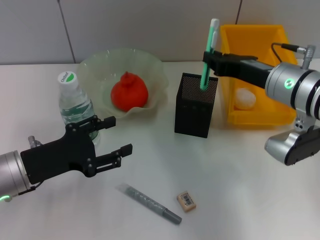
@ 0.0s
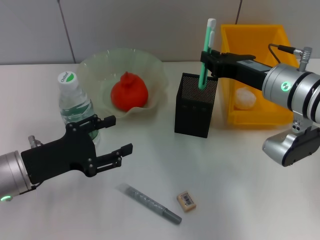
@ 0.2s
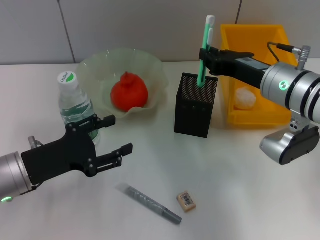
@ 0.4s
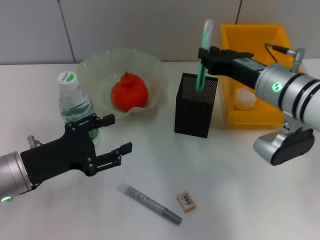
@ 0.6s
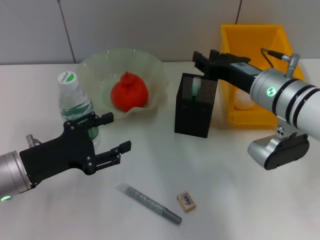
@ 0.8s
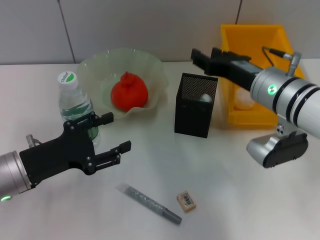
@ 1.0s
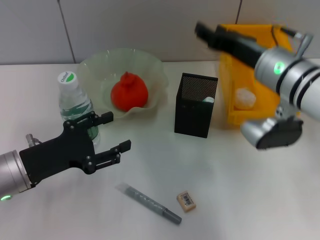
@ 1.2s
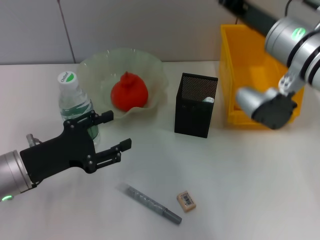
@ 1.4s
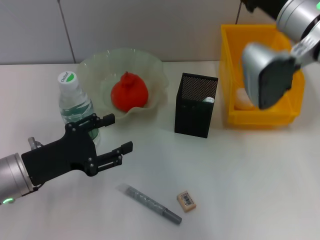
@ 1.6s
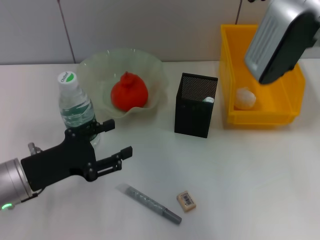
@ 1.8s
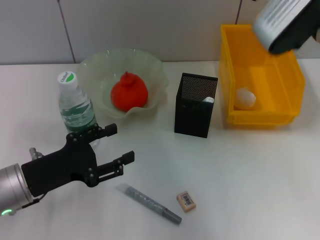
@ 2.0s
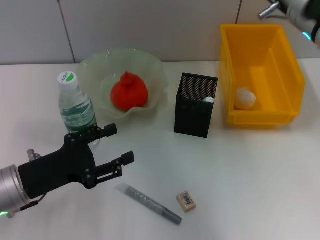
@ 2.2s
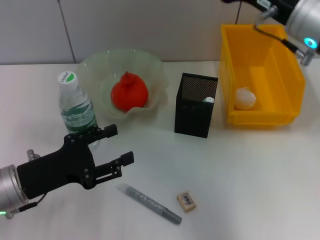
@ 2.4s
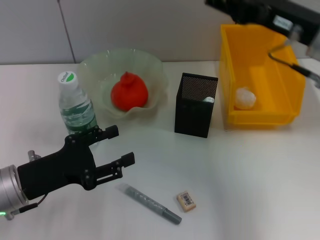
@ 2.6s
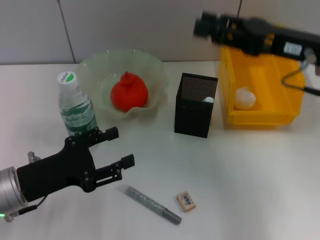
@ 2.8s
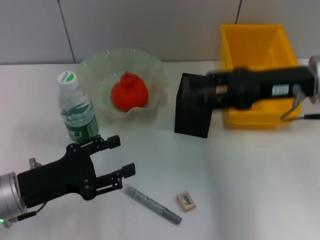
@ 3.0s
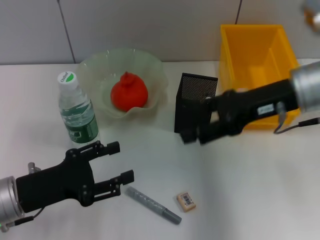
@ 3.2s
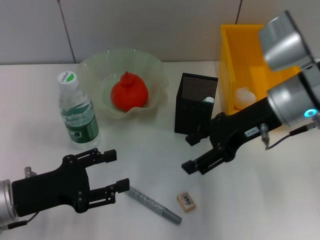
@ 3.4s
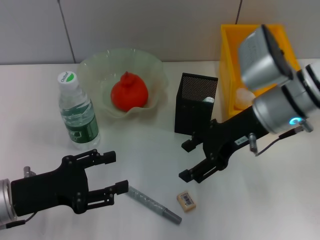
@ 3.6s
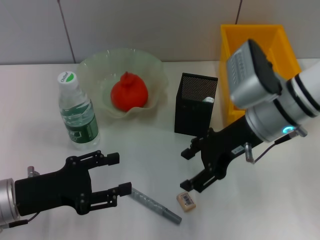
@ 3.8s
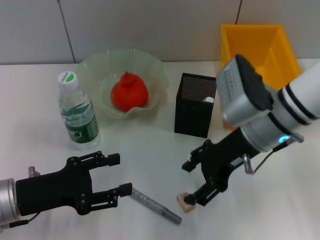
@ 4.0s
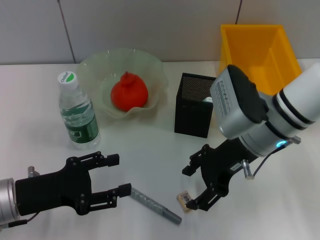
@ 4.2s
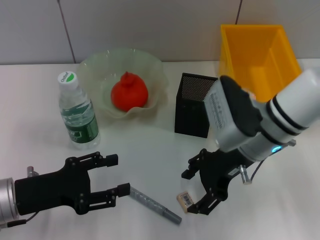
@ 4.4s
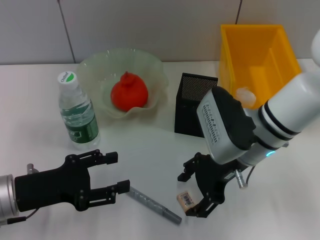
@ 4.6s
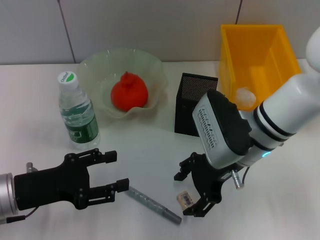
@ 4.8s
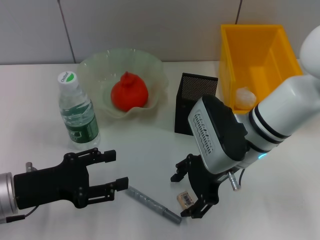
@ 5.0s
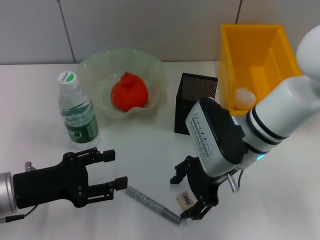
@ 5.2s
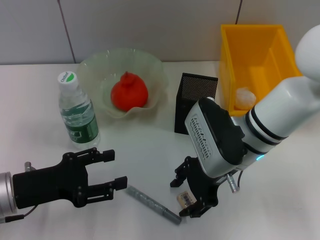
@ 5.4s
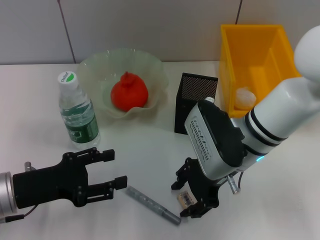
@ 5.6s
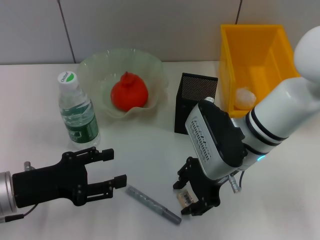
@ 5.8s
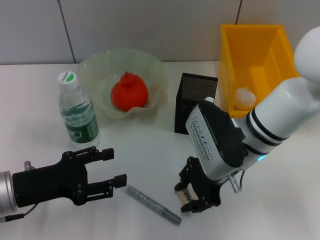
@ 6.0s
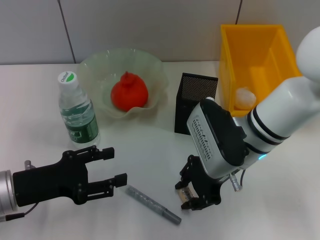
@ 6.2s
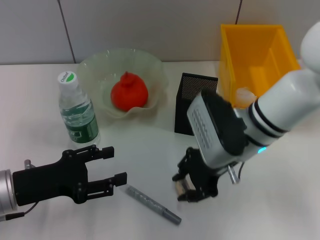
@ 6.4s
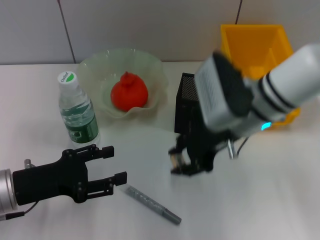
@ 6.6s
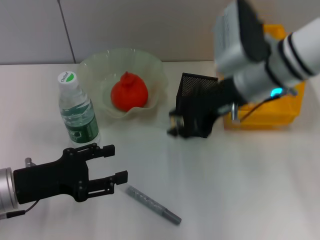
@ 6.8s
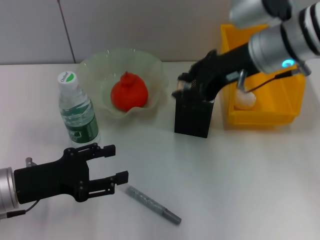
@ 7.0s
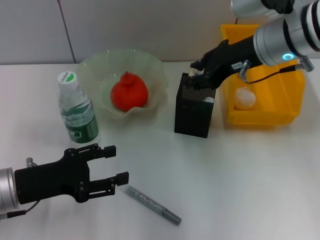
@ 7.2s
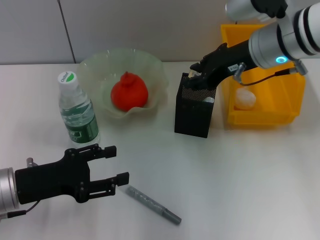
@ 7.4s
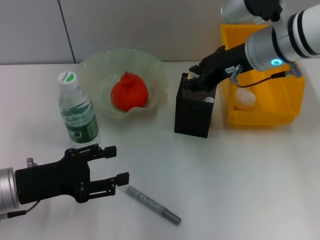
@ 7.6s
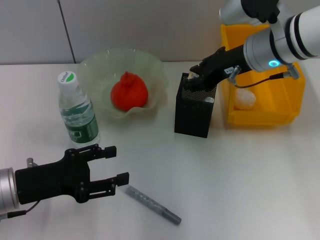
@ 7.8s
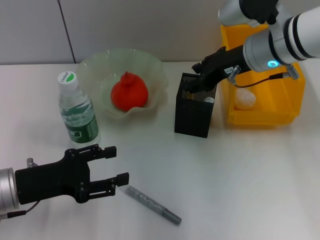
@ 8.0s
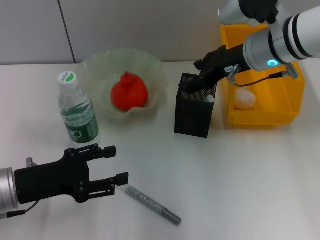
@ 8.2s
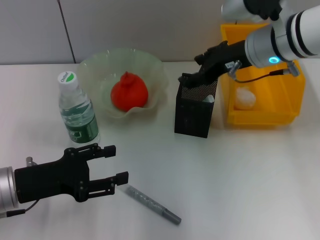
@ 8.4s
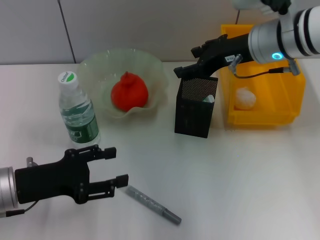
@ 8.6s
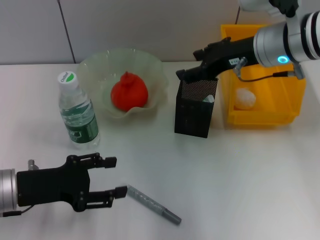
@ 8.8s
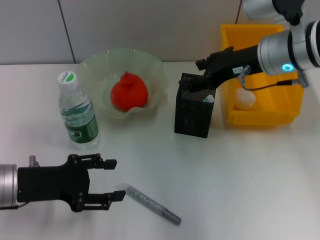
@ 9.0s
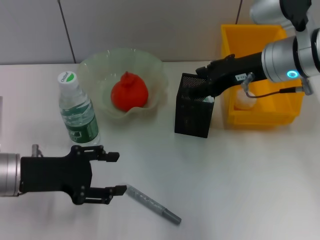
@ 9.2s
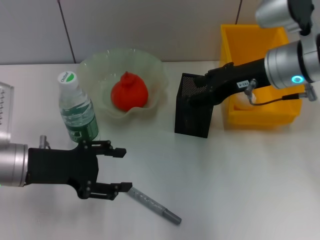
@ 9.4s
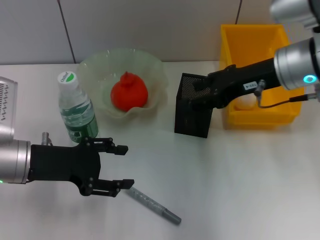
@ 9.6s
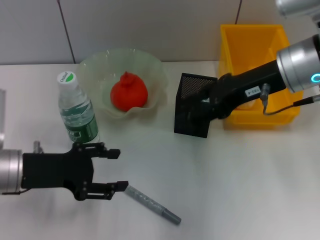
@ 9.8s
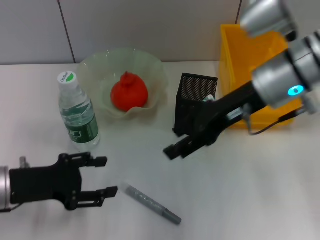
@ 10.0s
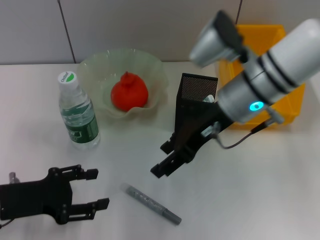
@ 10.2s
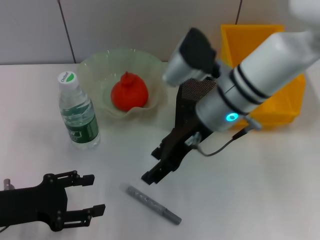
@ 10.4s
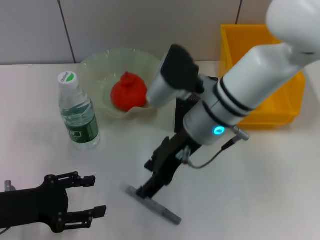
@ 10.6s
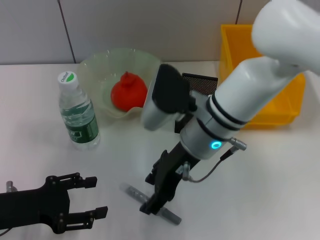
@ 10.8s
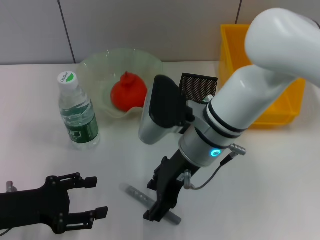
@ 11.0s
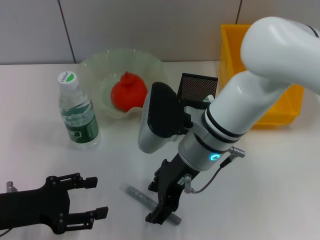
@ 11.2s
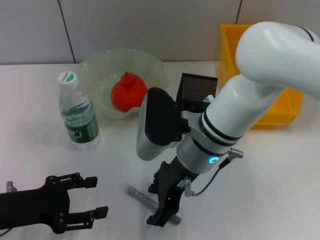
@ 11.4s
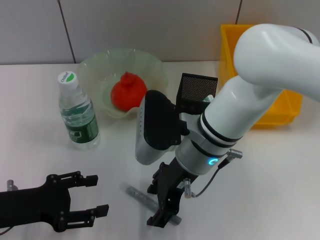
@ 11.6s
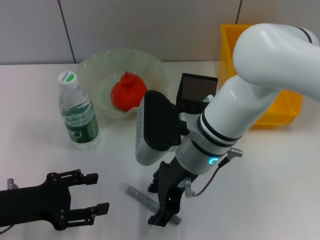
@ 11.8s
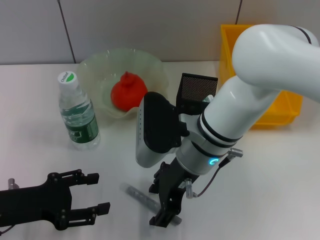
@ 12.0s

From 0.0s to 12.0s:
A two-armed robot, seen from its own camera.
Step, from 1.4s to 6.0s: Grab the eraser with the right hand.
Step, from 6.2s to 8.0s: Put the eraser into the pen holder with the right hand.
From 0.0s to 1.6s: The right gripper moves upward, about 10 cm, and opens its fingers.
From 1.6s to 3.0s: The right gripper ends up about 5 cm from where it was.
From 3.0s to 4.4s: The right gripper shifts approximately 10 cm to the left and downward.
From 4.4s to 6.0s: The right gripper closes up.
From 6.0s to 7.6s: The right gripper goes approximately 10 cm upward and forward.
From 7.6s to 9.0s: The right gripper opens up.
From 9.0s to 10.4s: The right gripper goes some 10 cm to the left.
From 10.4s to 12.0s: The right gripper ends up roughly 5 cm from where it was.

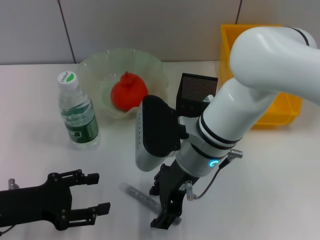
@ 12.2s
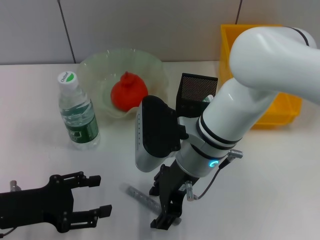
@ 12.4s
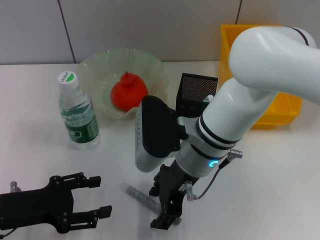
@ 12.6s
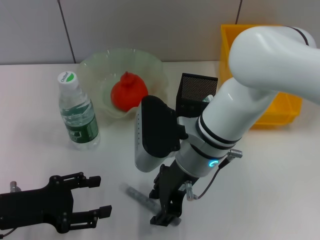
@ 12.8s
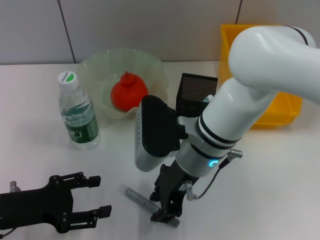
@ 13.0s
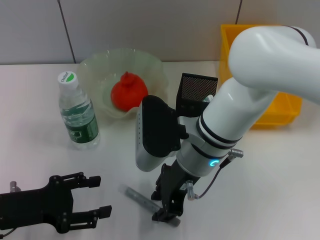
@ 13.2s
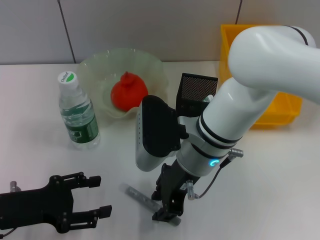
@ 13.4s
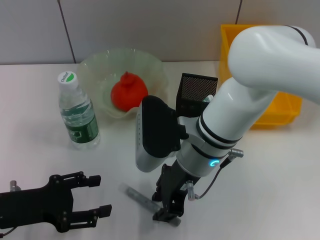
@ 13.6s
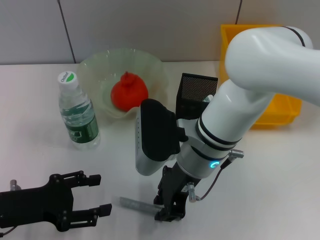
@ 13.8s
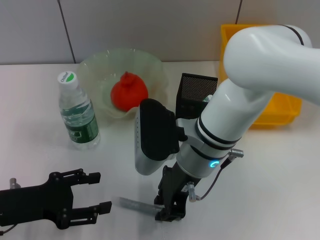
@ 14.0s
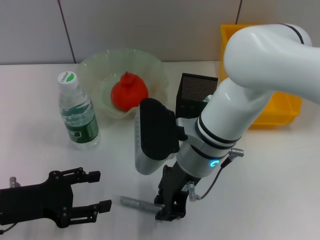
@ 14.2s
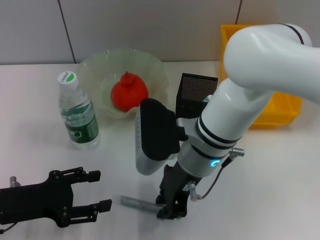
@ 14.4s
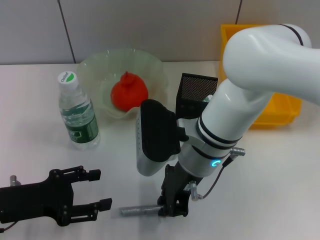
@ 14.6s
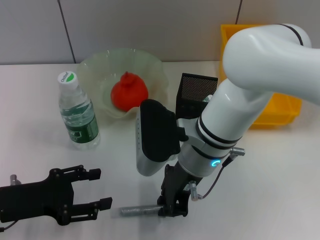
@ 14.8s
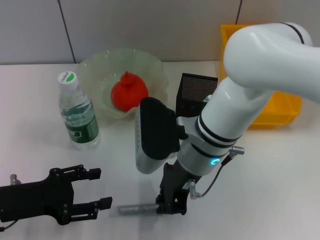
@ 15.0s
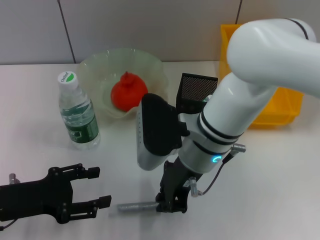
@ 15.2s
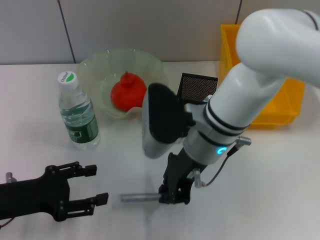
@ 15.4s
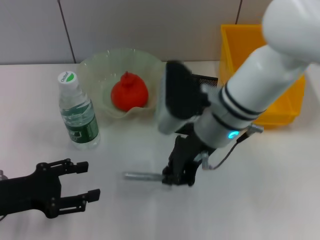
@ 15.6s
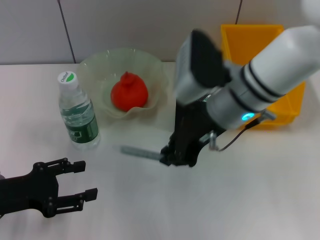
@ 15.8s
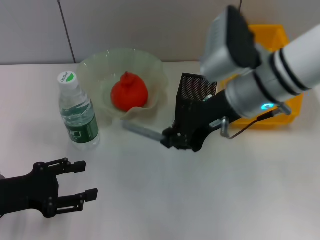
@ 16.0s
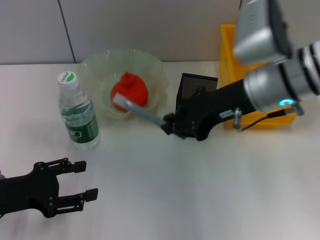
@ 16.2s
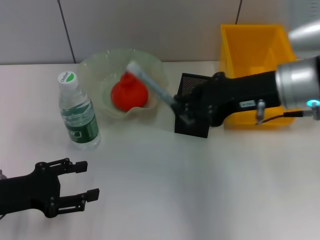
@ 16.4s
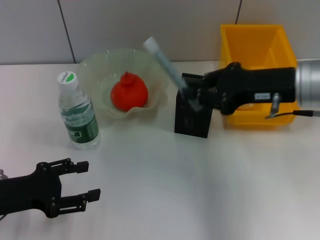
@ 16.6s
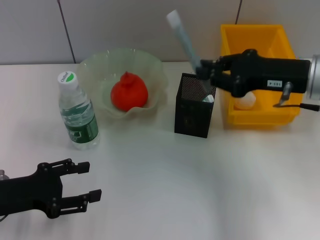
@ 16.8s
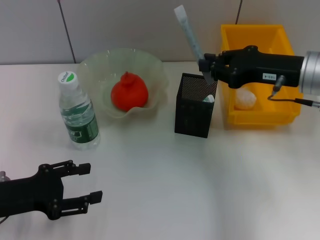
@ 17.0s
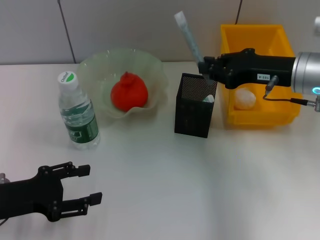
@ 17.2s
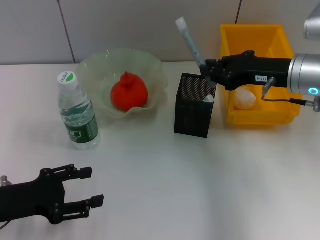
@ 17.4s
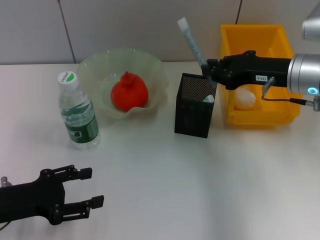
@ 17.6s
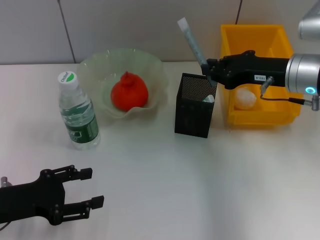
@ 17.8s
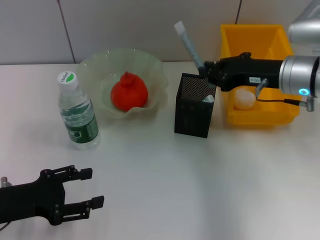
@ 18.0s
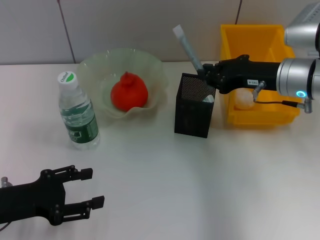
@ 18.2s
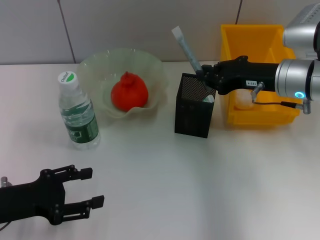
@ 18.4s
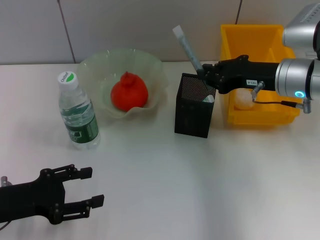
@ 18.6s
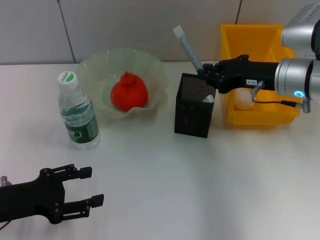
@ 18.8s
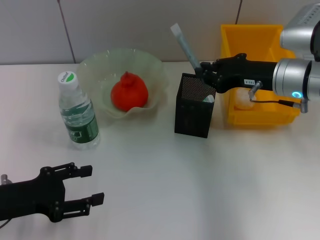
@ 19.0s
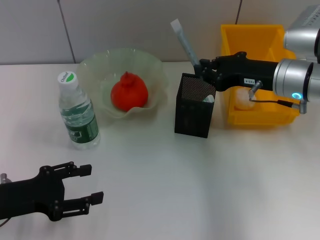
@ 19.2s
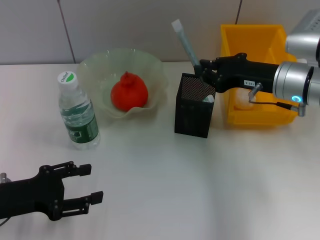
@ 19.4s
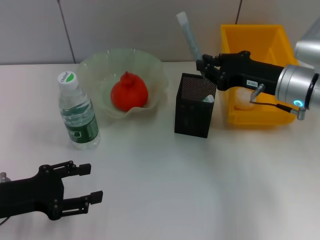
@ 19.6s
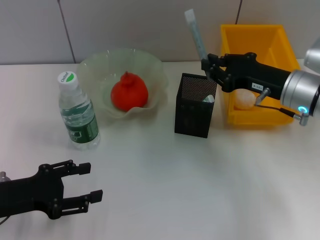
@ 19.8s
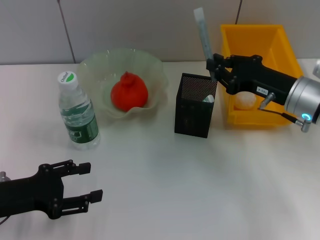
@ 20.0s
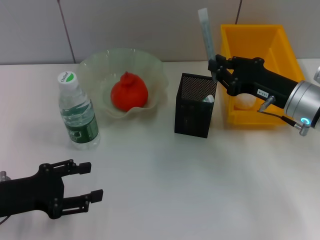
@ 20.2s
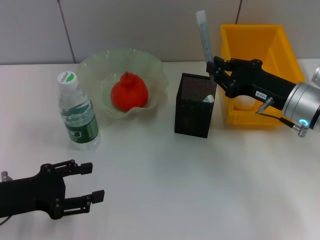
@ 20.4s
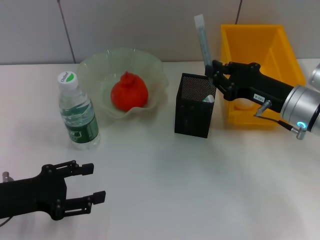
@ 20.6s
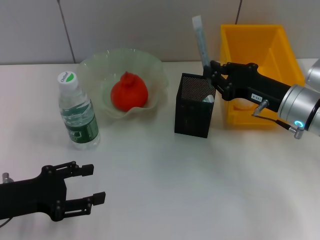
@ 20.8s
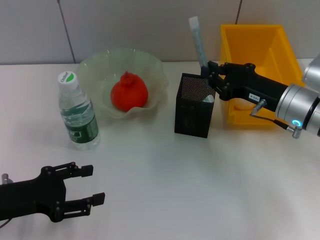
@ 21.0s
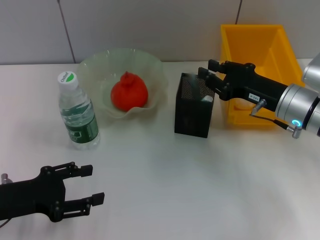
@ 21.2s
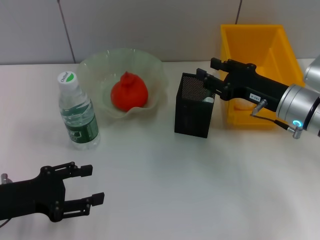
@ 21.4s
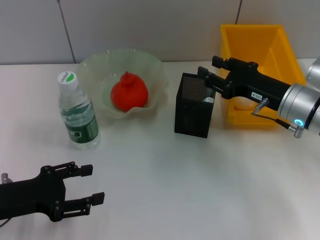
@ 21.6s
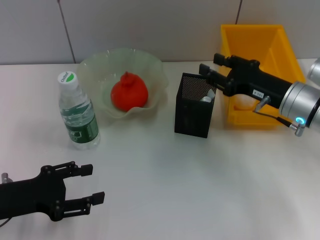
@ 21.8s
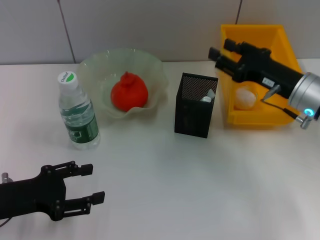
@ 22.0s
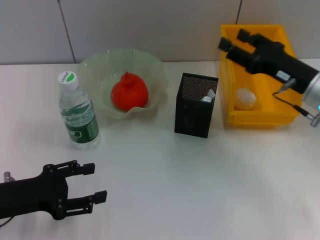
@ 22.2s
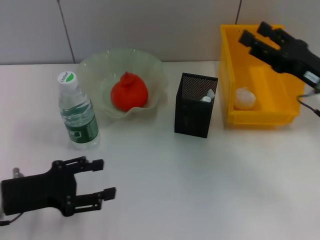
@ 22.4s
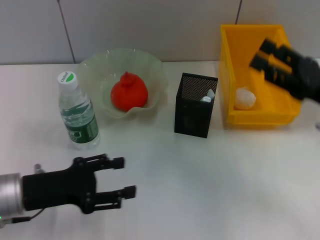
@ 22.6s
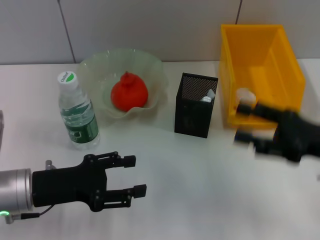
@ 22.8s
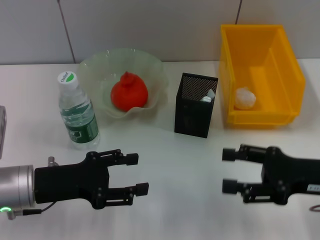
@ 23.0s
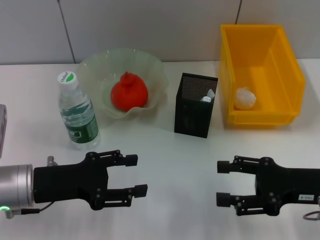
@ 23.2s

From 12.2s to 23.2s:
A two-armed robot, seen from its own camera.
Step, from 12.2s to 14.6s: Grab the gray glue with the right hand.
Step, from 14.8s to 21.8s: Place the gray glue into the pen holder with the right hand.
From 12.2s to 13.8s: The right gripper closes.
From 13.8s to 15.4s: The right gripper closes its fingers.
From 15.4s to 17.0s: The right gripper goes approximately 15 cm to the right.
From 17.0s to 18.4s: The grippers stay close to where they were, moving slightly.
From 18.4s to 20.0s: The grippers make only small movements.
From 20.0s to 21.6s: The right gripper opens its fingers.
From 21.6s to 23.2s: The left gripper heads to the right, covering approximately 5 cm. The right gripper shifts approximately 10 cm backward, and opens.
